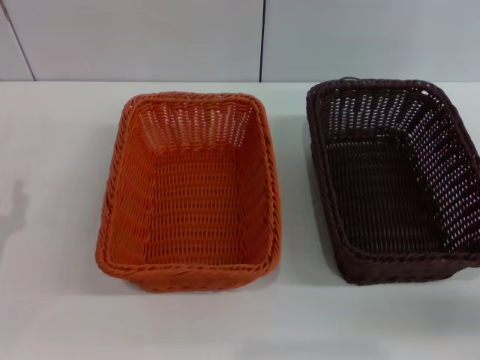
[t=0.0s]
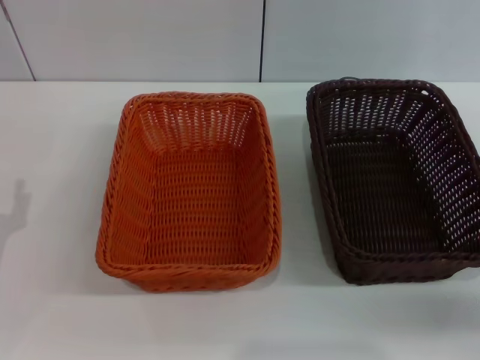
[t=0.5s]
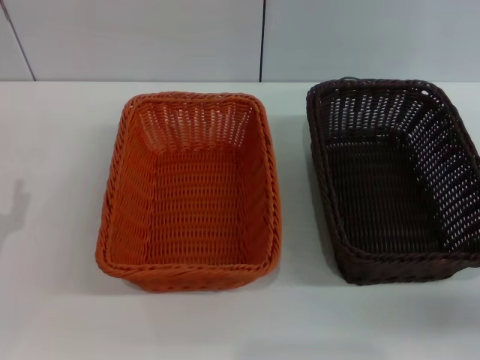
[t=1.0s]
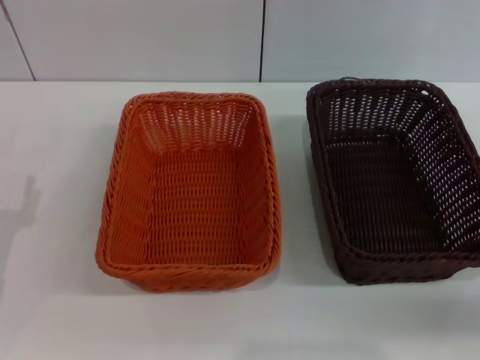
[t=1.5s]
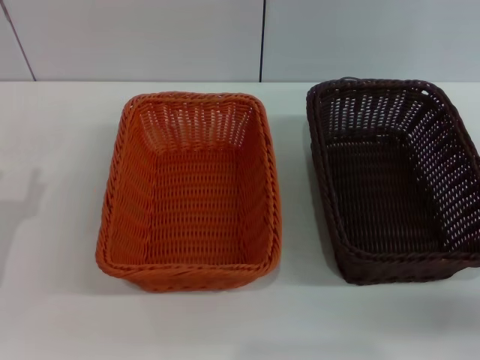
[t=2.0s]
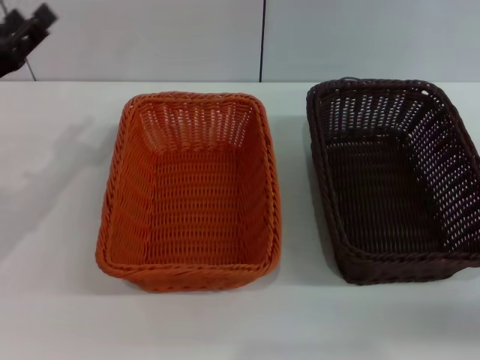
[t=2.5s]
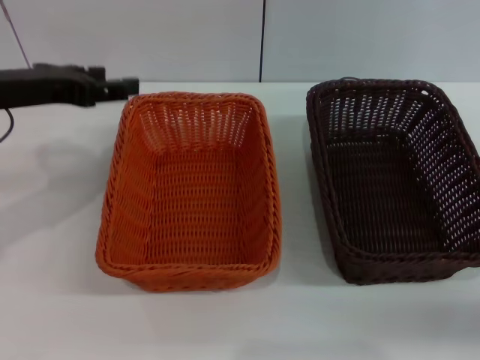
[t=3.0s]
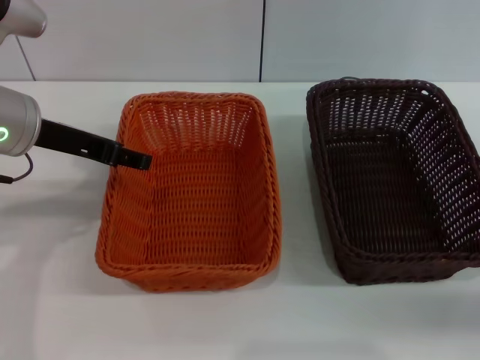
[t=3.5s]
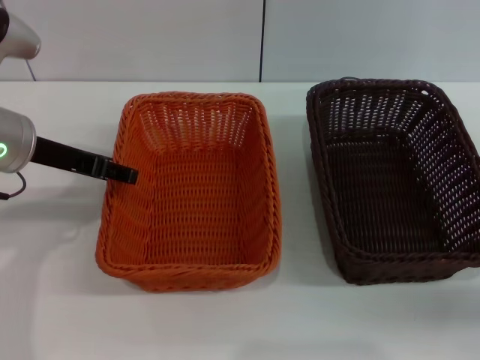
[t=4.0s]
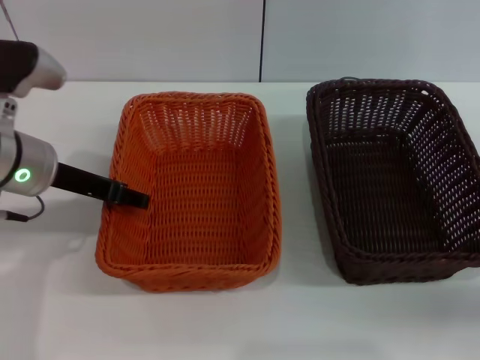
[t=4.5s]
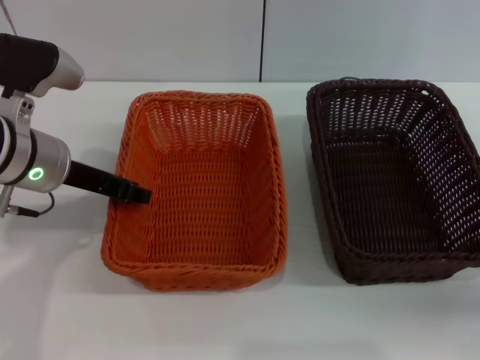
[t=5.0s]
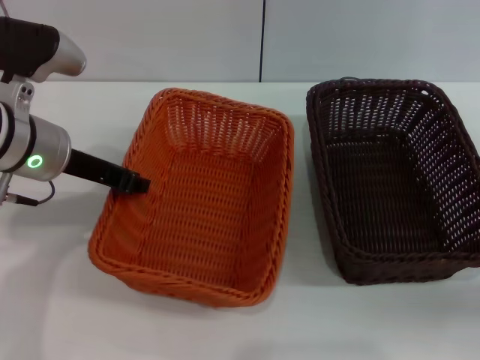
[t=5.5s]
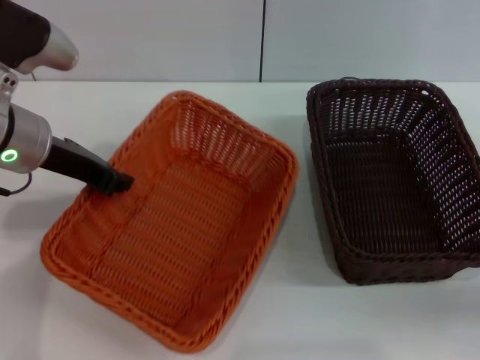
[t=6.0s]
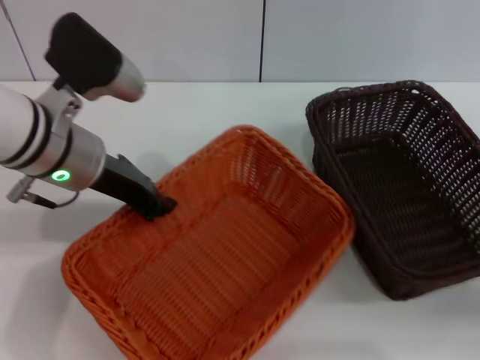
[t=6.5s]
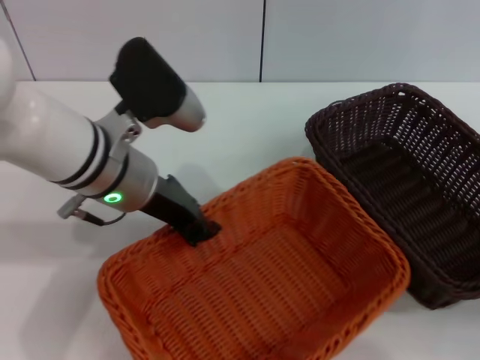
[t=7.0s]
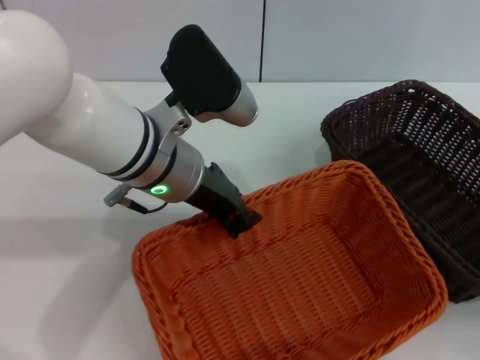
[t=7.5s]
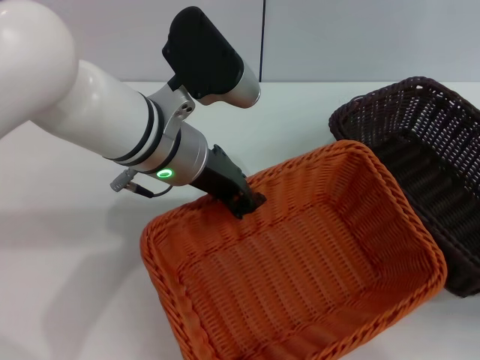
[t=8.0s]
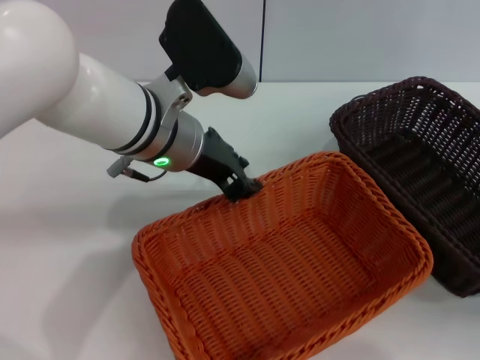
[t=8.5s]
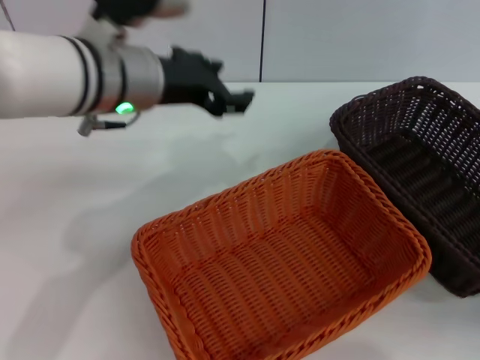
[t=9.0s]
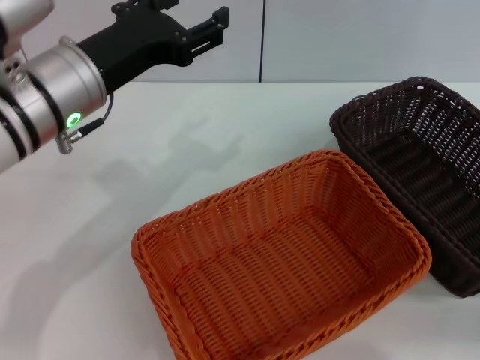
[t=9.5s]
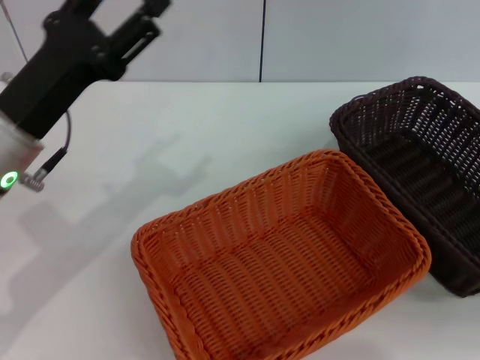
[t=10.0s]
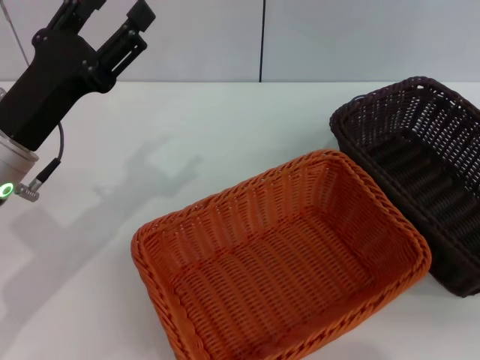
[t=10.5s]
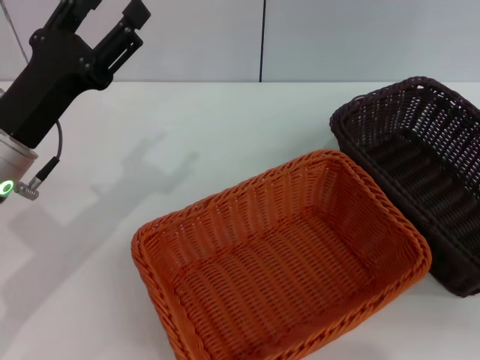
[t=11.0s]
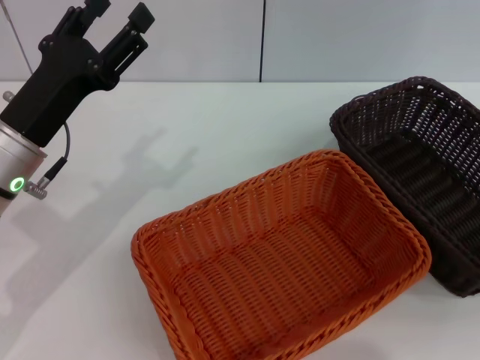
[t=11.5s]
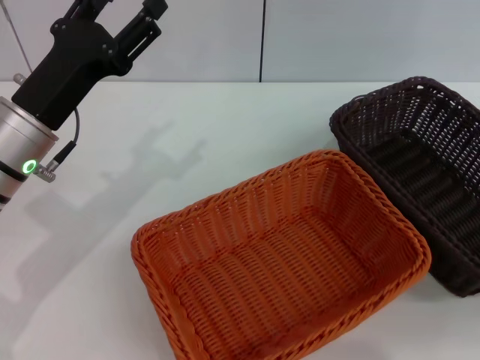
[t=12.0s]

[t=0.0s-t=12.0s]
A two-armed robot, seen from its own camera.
Step, t=0.0s to t=5.5s: Pick up the light basket with the left gripper.
Step, t=6.0s to t=8.0s: Place the light basket in the center of view with the left gripper.
t=2.0s to t=4.0s: The left gripper moves upward, forward and to the right, some 20 cm.
t=4.0s to t=6.0s: The left gripper closes its fingers.
t=6.0s to t=8.0s: The left gripper heads to the right, covering approximately 15 cm.
t=8.0s to t=10.0s: The left gripper moves to the left, approximately 15 cm, and opens up. The right gripper heads upward and to the right, covering approximately 10 cm.

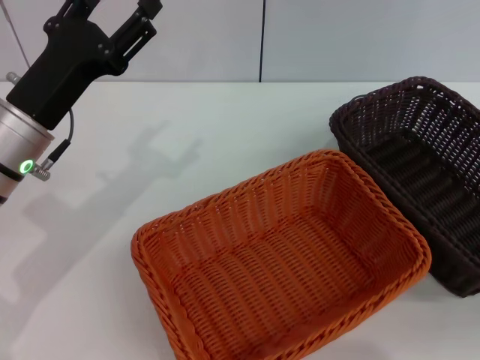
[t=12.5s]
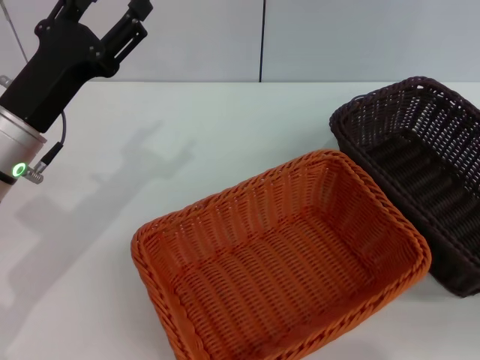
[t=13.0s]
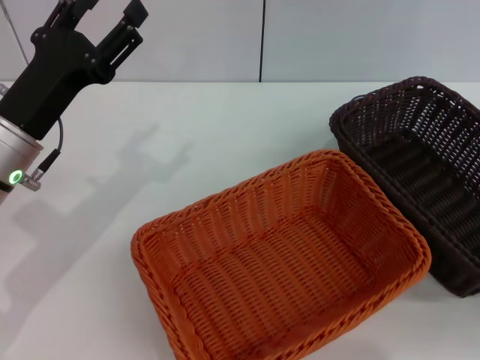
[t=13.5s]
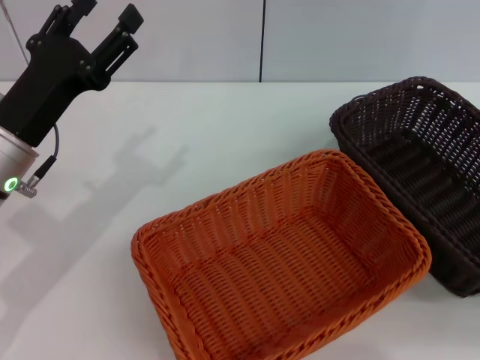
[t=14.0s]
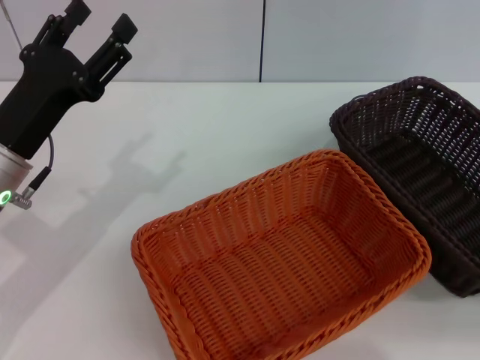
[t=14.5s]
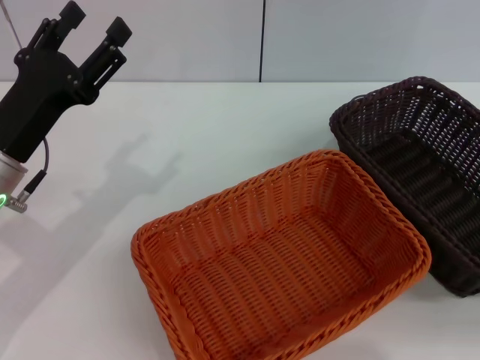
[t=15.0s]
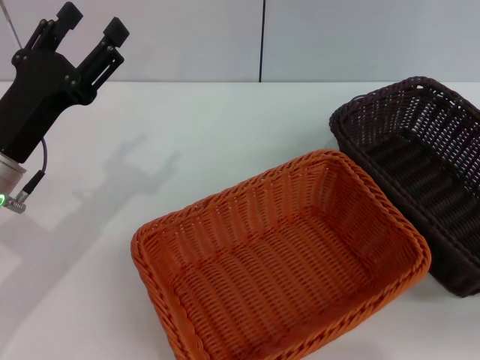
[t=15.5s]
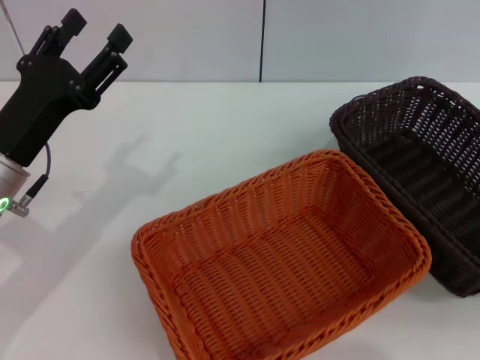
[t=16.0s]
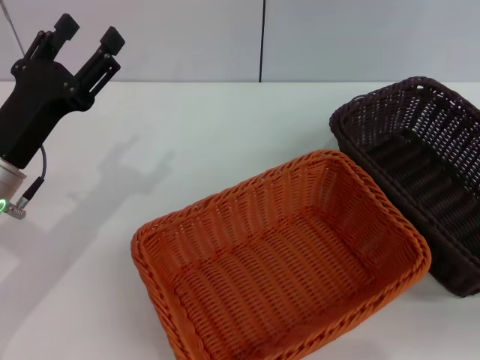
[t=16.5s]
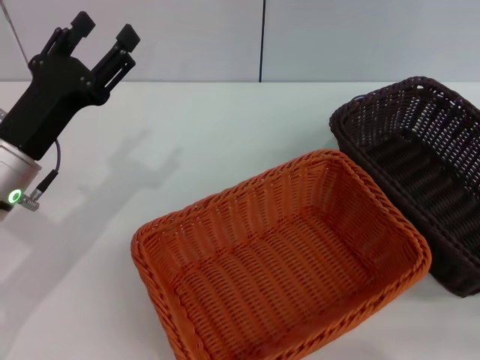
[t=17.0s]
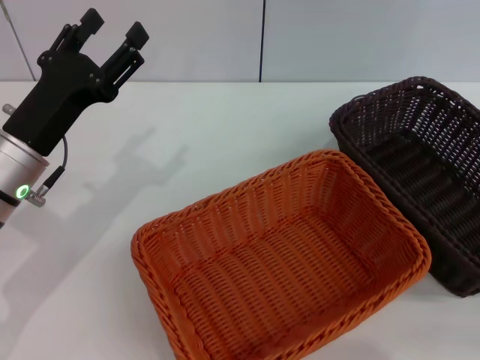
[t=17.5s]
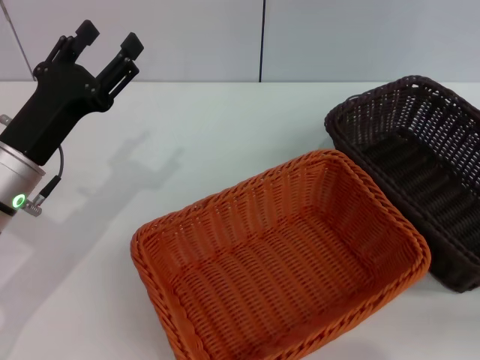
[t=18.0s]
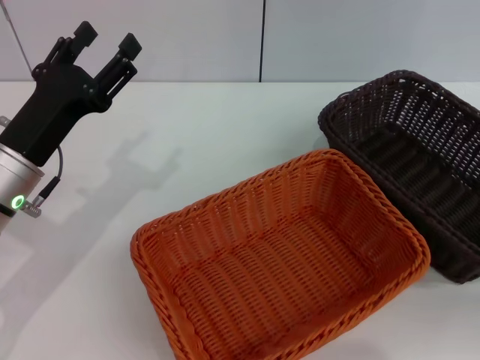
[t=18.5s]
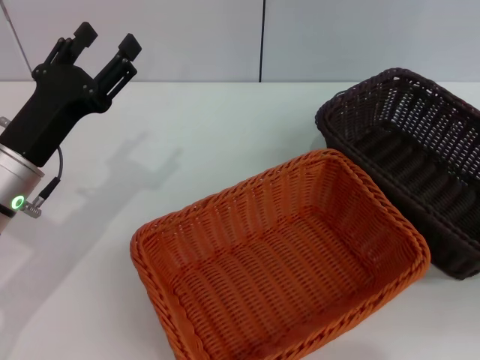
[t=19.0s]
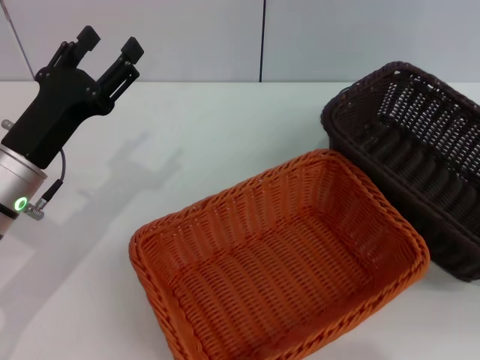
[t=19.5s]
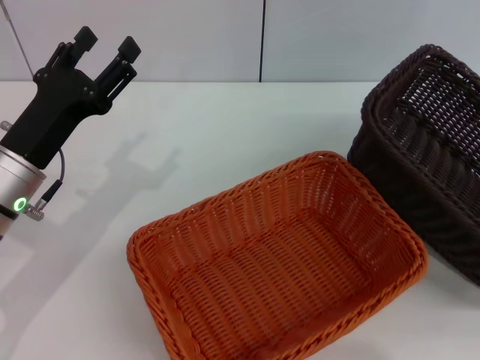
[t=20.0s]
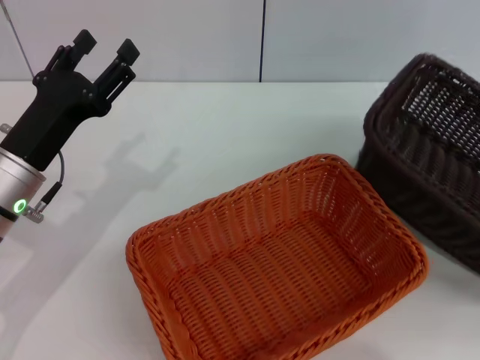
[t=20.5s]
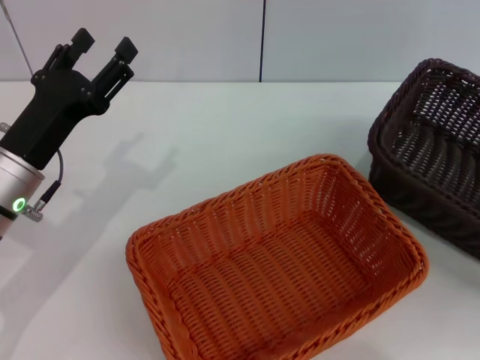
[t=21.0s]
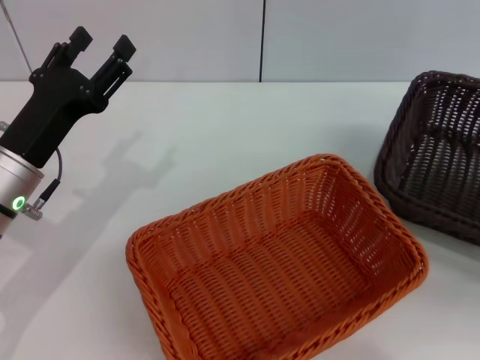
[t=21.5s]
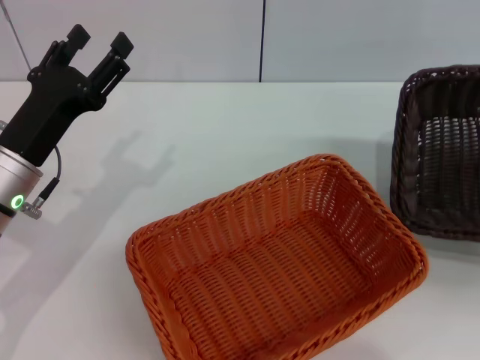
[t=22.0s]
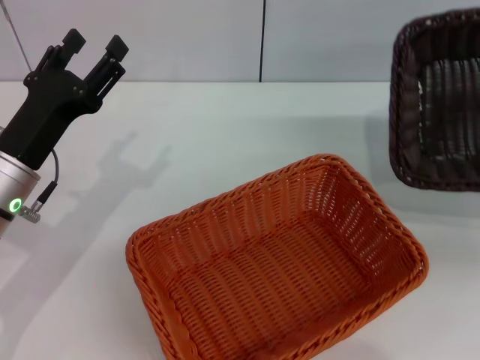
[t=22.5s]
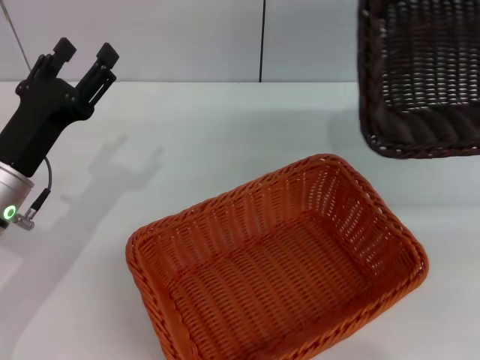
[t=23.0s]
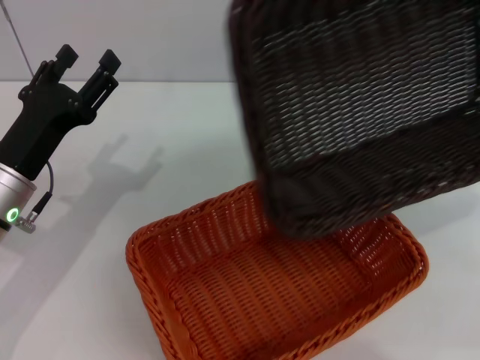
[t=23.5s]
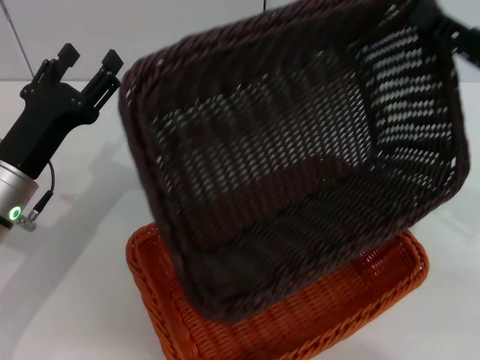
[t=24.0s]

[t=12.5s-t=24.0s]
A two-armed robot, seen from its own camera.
Step, t=12.5s to t=19.5s: Pick up the dark basket with the right gripper.
t=14.5s to t=16.5s: The grippers stay close to where they were, moving slightly.
t=16.5s to t=18.5s: The right gripper is displaced downward by some 5 cm.
t=18.5s to t=20.0s: The right gripper closes up.
t=20.0s to t=22.0s: The right gripper heads upward, covering some 5 cm, and closes up.
t=22.0s to t=24.0s: The right gripper moves to the left and forward, about 20 cm.

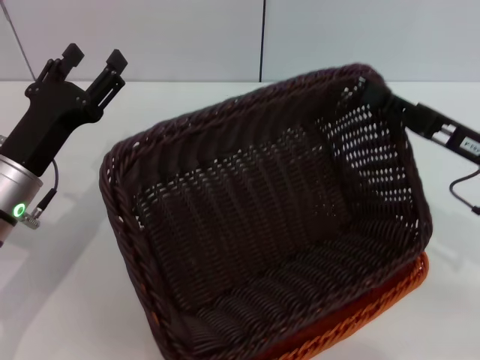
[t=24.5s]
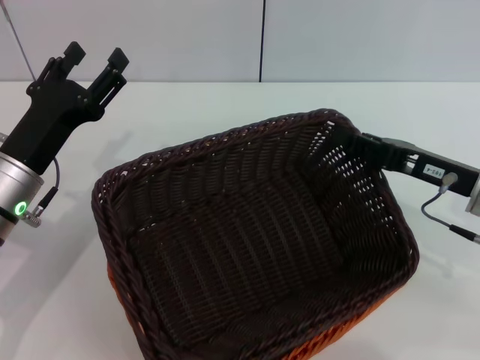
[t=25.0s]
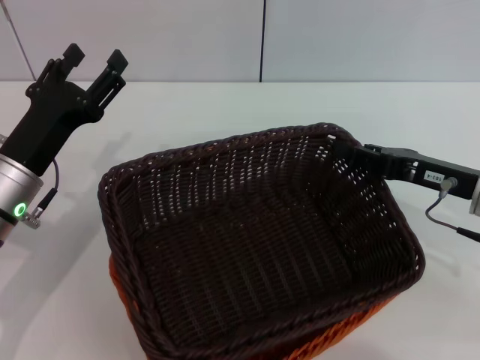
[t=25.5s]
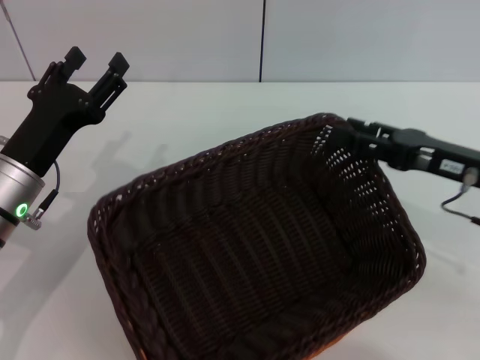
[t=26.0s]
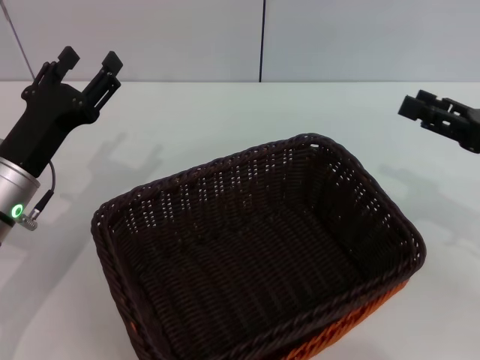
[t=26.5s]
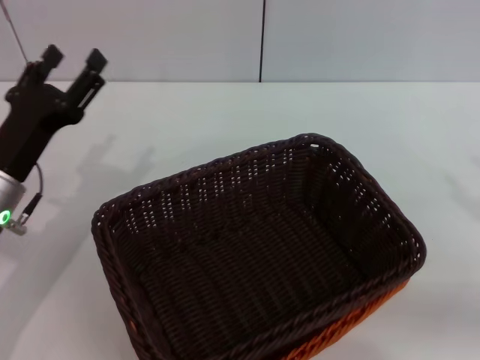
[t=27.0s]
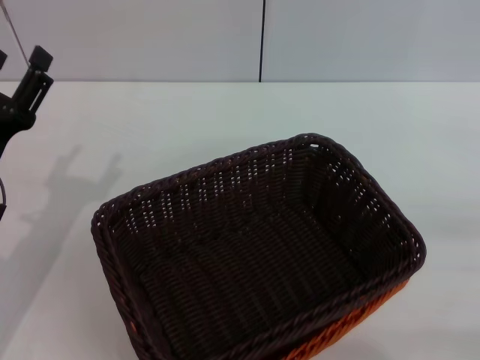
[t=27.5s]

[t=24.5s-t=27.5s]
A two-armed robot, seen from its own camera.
t=24.5s to t=26.0s: The right gripper opens up.
t=26.0s to t=27.5s: The right gripper heads to the right and backward, covering about 15 cm, and opens up.
